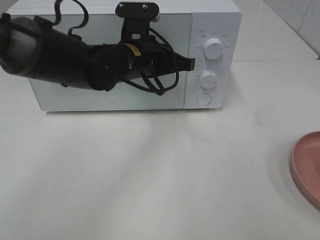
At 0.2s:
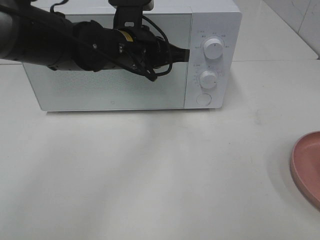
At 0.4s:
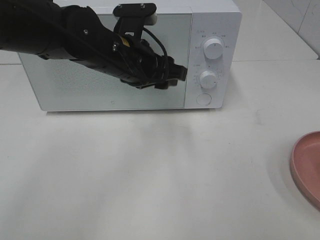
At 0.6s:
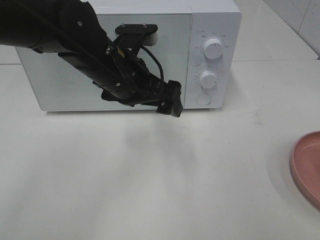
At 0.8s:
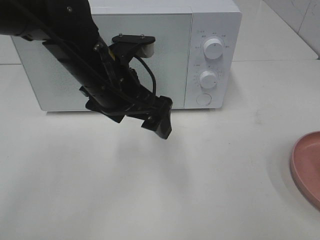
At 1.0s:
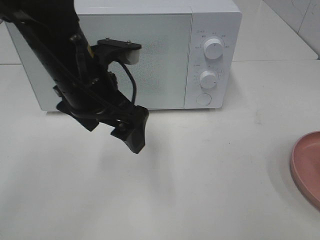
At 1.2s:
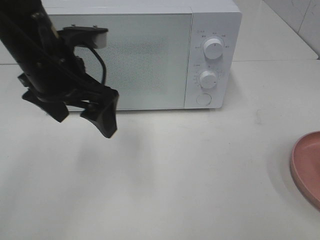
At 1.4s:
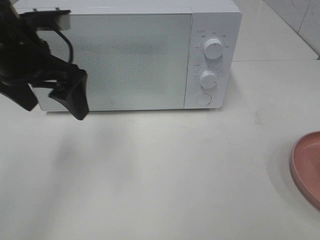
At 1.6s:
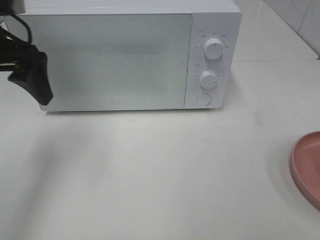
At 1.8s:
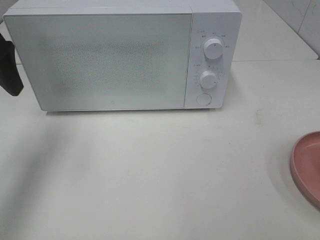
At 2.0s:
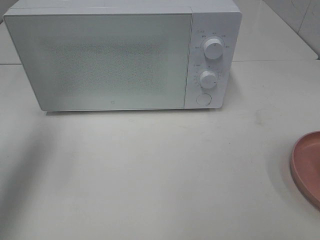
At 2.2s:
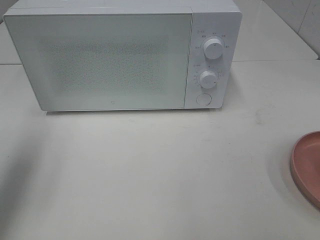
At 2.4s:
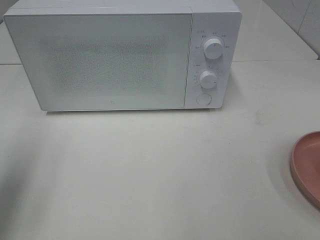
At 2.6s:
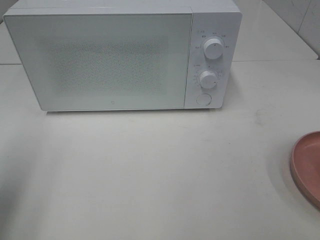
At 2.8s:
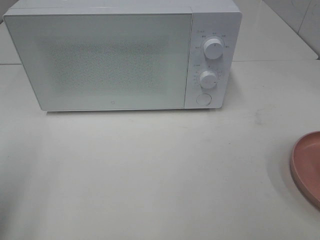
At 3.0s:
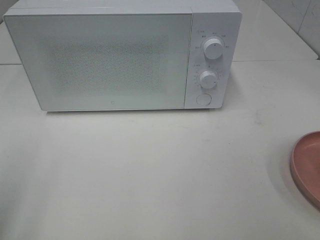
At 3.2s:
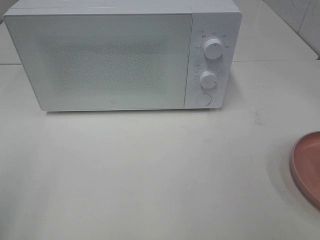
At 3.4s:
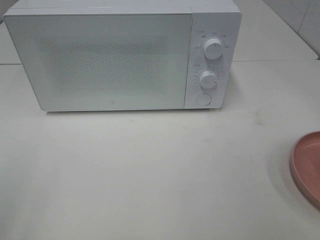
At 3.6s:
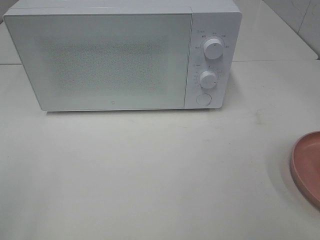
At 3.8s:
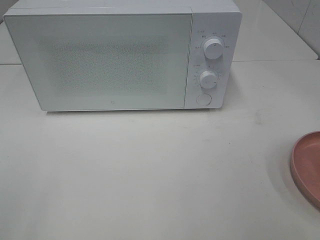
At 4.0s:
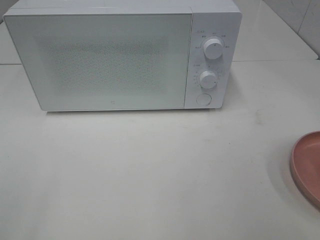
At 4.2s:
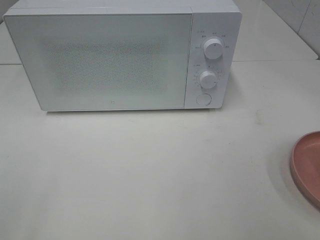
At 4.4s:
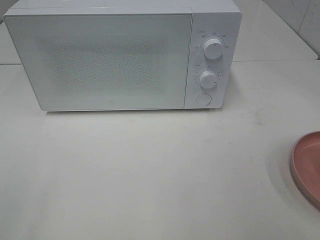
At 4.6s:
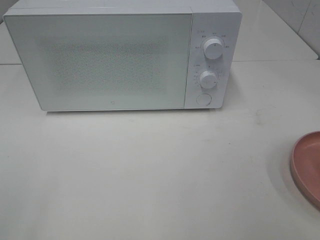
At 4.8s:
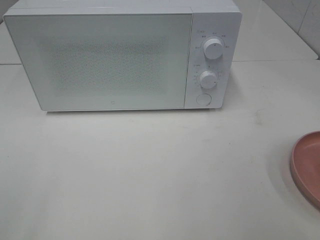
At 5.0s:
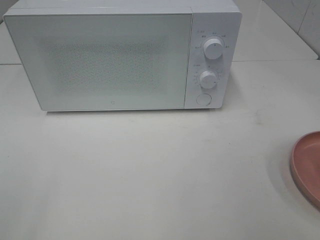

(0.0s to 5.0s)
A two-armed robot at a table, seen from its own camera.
Task of the whole recording: Heat the burger.
0.0s - 1.6s: The left gripper is displaced to the left and upward by some 20 cm, and opens.
1.6s - 3.4s: The left gripper is displaced backward by some 25 cm.

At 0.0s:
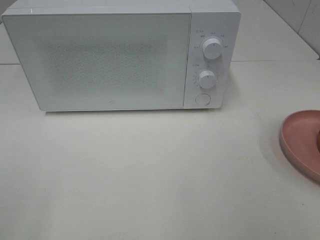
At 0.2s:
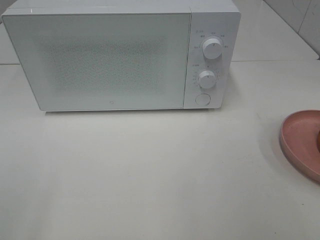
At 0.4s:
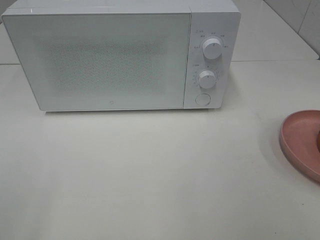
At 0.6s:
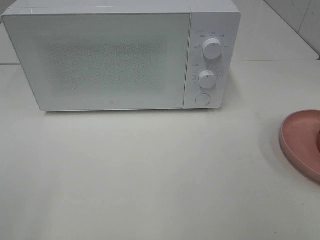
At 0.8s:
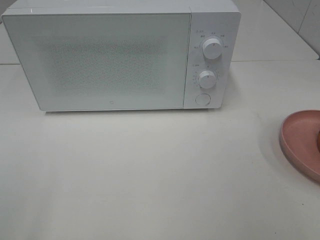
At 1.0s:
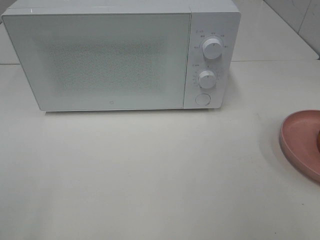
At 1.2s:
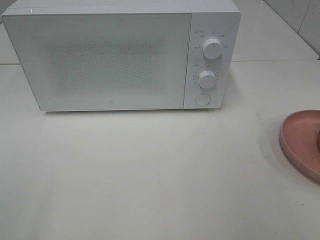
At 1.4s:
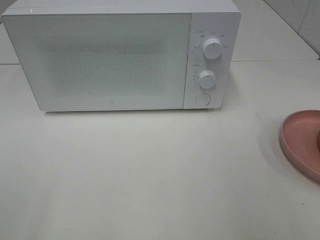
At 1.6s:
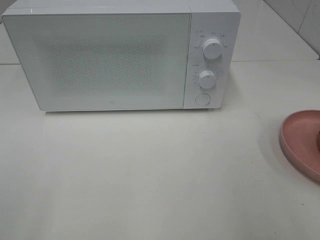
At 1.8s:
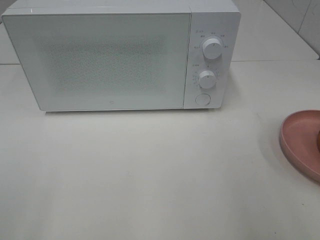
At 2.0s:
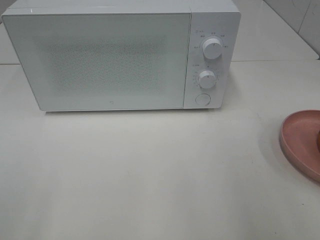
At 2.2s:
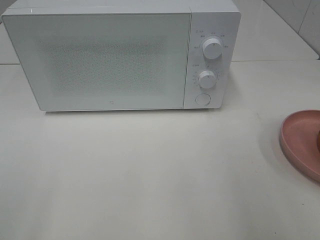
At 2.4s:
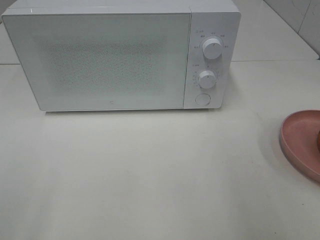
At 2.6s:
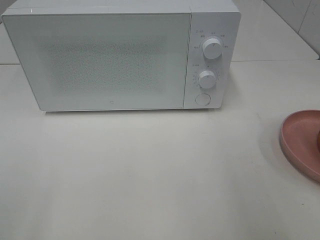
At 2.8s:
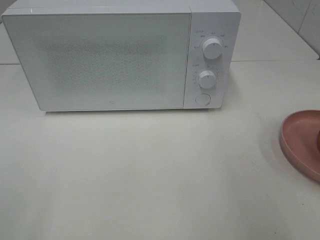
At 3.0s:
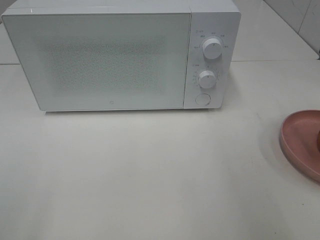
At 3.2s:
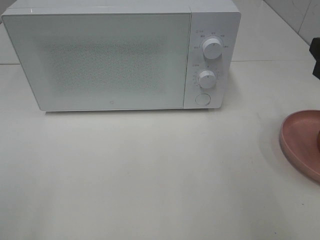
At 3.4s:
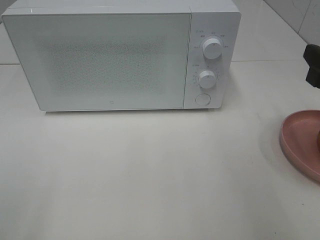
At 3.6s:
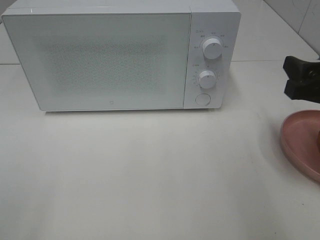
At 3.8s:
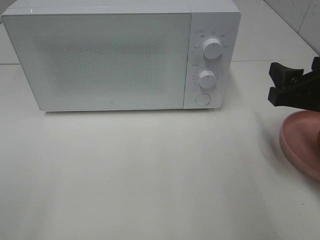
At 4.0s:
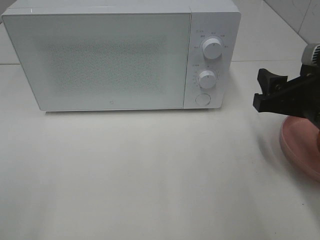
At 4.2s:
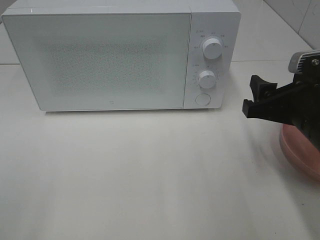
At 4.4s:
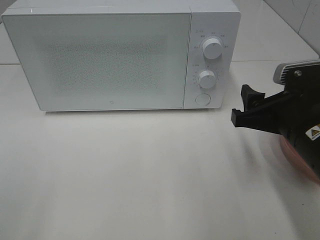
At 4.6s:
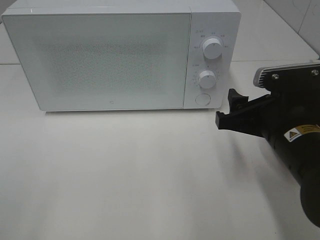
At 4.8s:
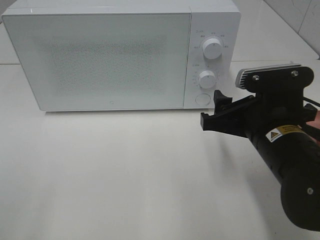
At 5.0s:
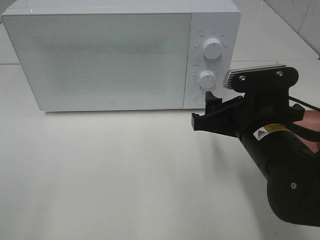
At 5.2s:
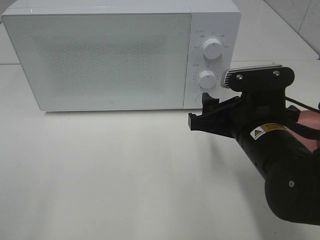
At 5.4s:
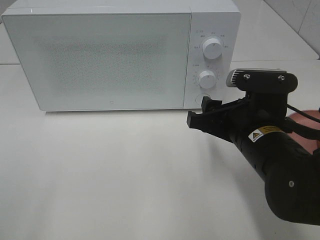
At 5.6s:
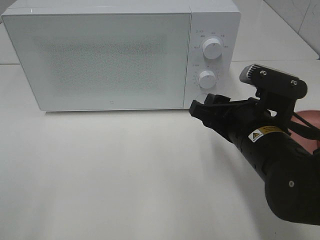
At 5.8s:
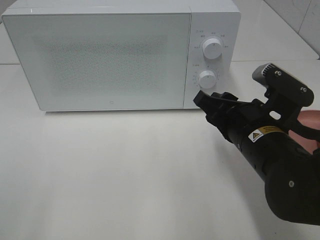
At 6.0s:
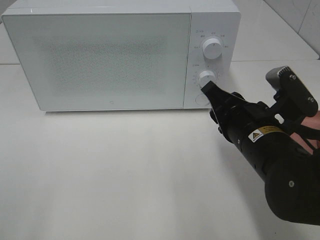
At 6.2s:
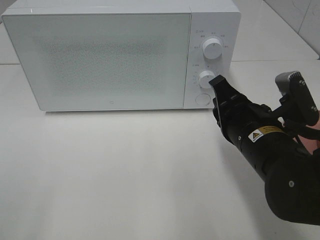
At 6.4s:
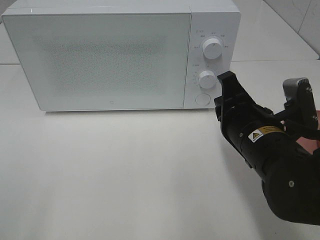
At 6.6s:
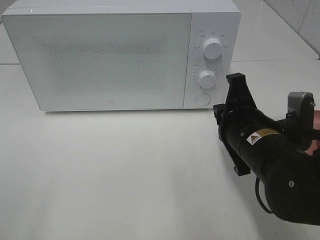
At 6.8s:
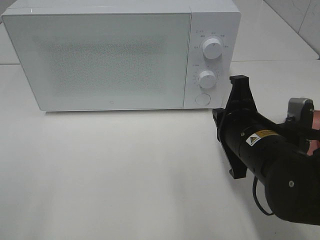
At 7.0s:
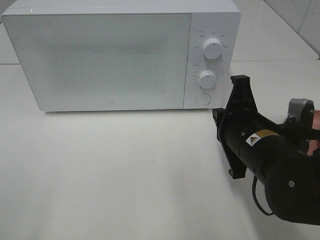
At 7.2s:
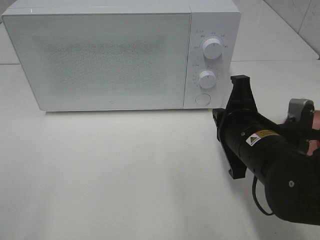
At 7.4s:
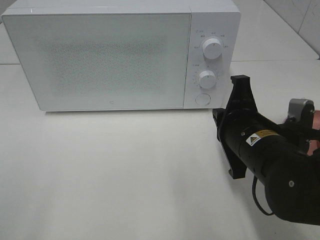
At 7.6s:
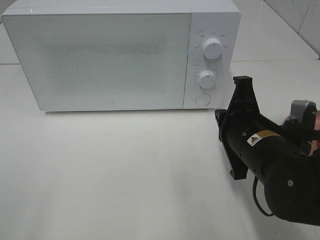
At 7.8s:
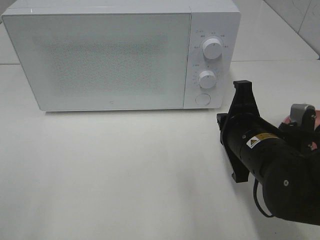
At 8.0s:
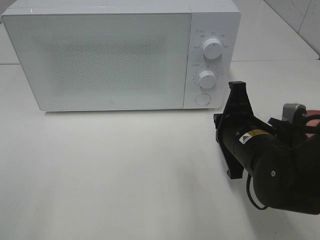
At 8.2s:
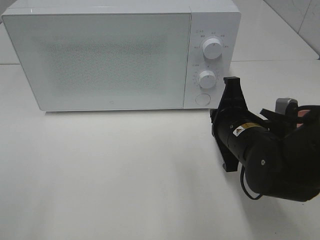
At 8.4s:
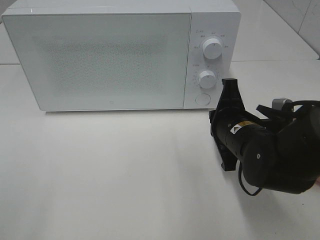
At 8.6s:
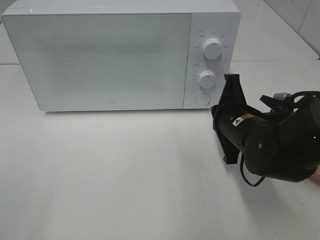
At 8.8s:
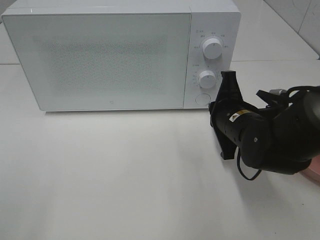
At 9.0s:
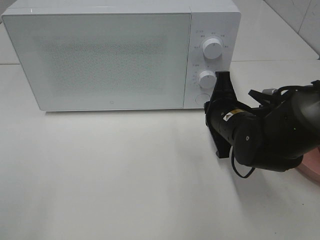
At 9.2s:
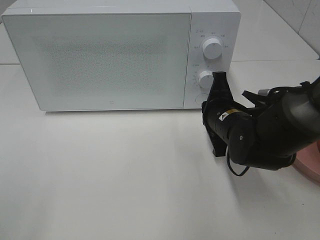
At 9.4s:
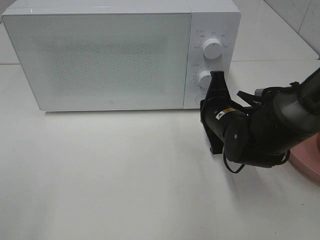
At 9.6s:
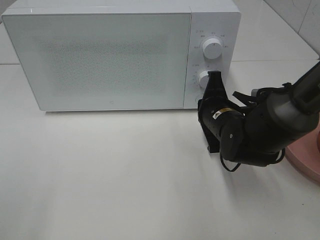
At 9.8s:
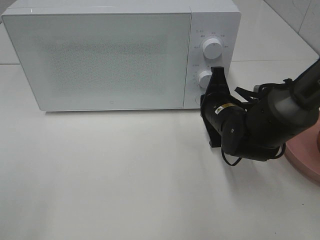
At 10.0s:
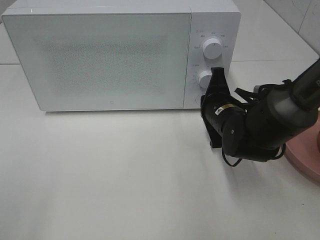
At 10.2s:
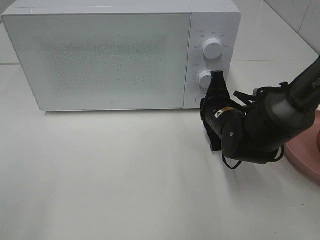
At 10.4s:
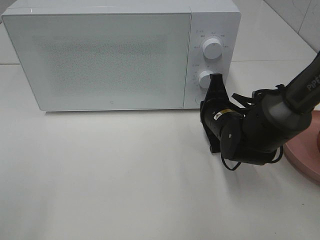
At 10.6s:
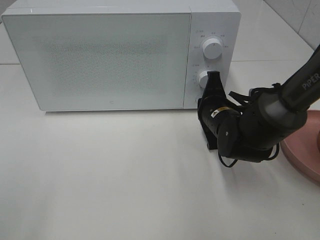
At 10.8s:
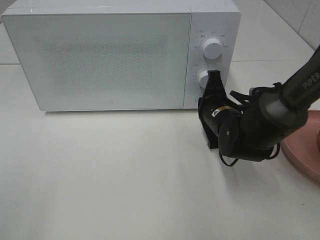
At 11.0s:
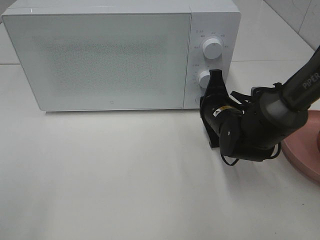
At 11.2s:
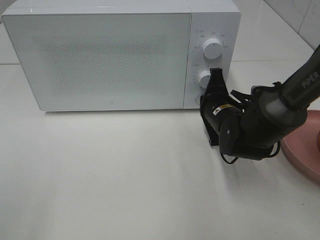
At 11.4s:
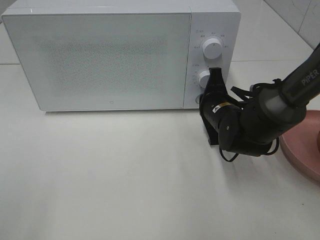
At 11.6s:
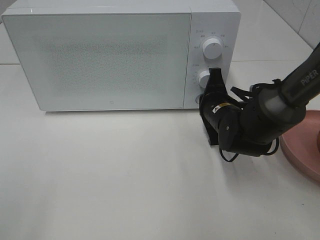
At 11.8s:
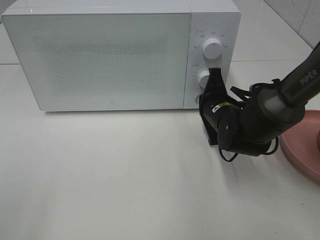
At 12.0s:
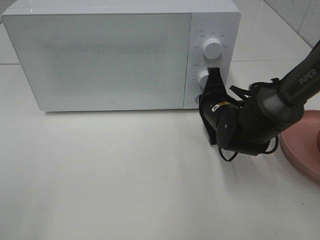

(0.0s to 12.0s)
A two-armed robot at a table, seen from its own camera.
Task of the whole recording: Heat the burger.
3.0s - 4.4s: The right gripper shifts some 15 cm to the left and downward.
4.4s - 6.0s: The right gripper is displaced to the left by roughly 5 cm, and closes.
6.0s - 7.6s: The right gripper closes its fingers.
7.6s - 9.0s: The right gripper heads forward, covering about 10 cm.
9.0s - 12.0s: There are only small adjustments of the grippers.

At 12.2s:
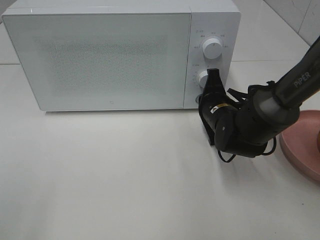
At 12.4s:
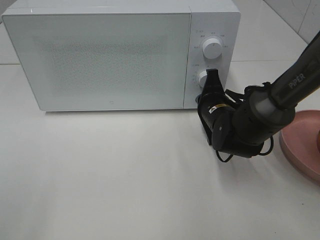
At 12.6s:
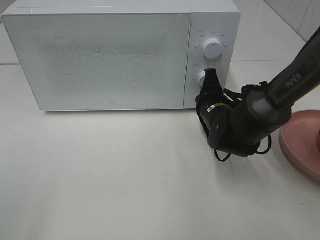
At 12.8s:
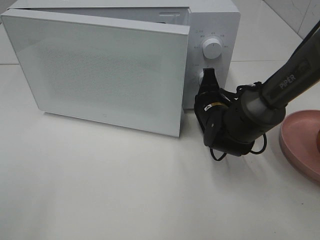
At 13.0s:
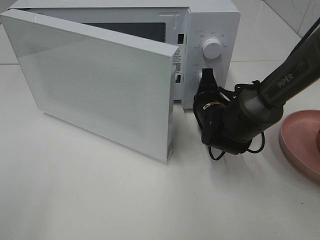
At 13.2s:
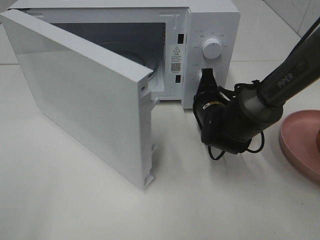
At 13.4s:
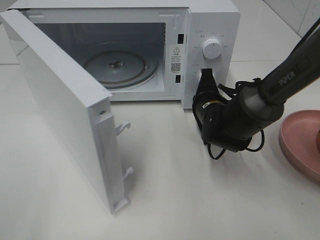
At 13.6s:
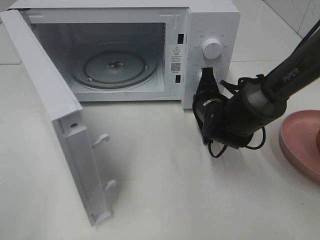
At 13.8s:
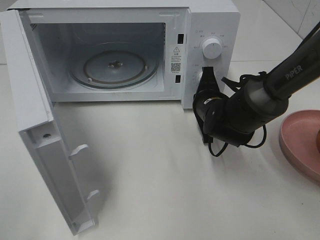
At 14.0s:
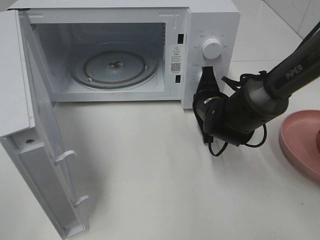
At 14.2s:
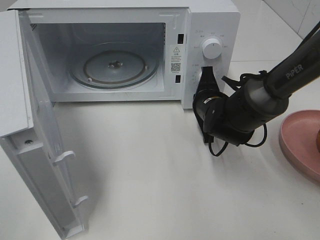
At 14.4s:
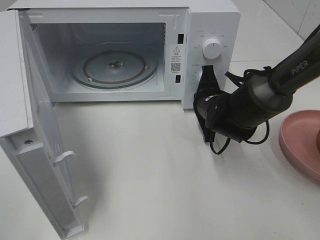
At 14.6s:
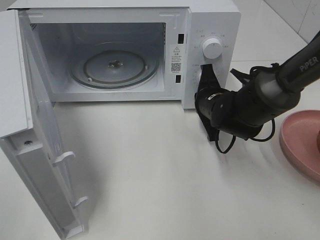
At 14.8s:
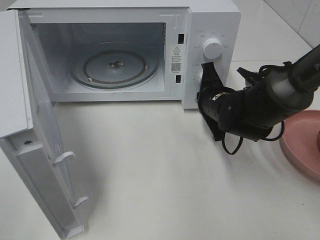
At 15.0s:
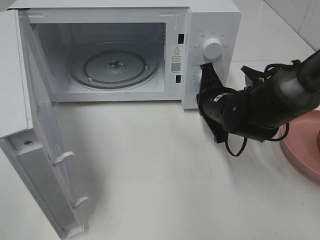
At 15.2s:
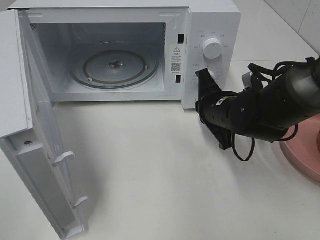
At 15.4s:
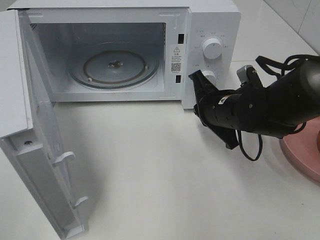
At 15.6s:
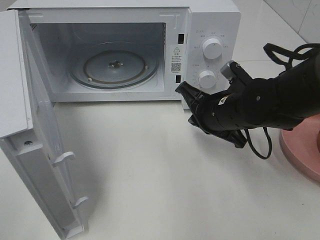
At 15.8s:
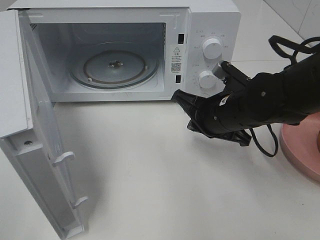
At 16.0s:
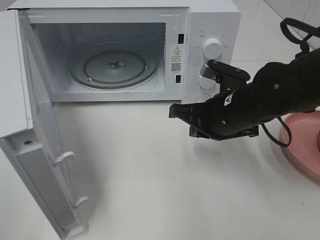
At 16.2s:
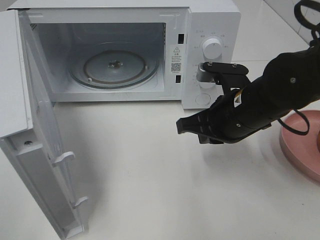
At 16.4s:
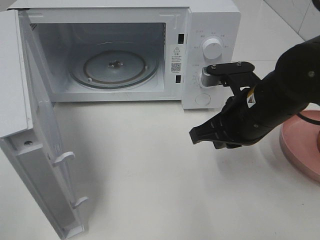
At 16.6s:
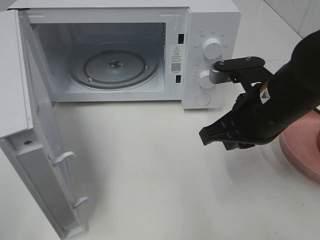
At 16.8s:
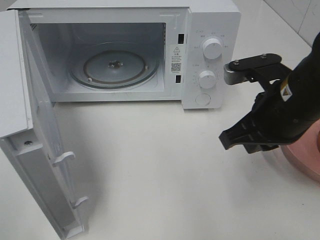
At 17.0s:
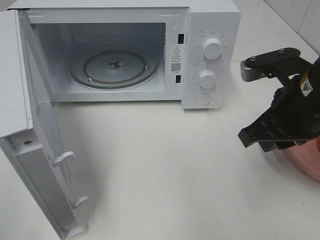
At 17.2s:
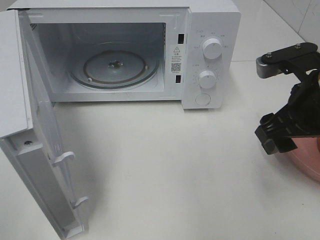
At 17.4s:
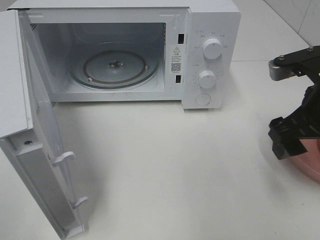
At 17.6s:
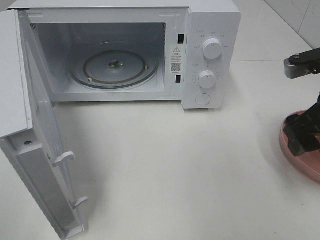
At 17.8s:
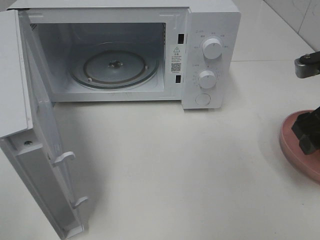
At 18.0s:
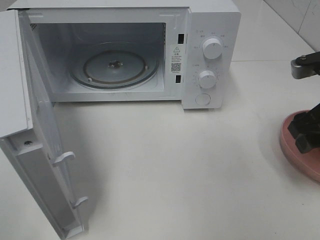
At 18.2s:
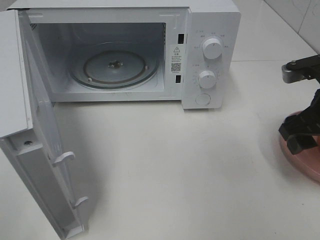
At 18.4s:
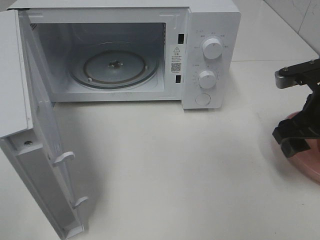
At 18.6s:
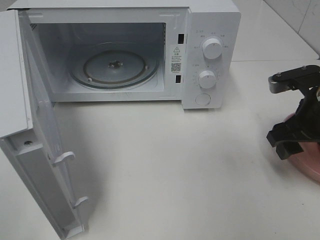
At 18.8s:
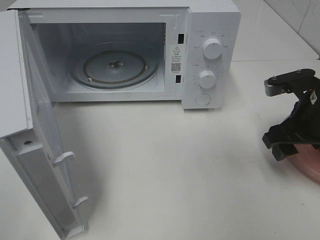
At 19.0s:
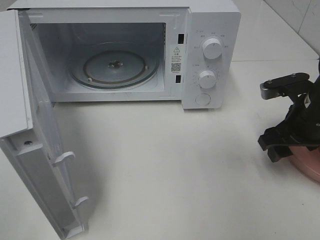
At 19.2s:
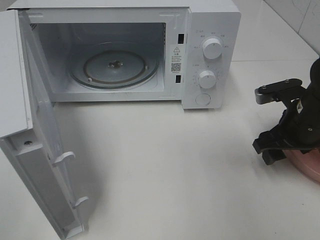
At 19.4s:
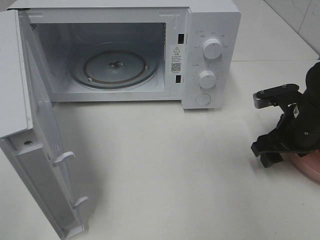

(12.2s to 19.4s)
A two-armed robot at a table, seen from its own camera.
Task of the whole recording: Heat the burger.
Step, 12.2s - 14.8s: Right hand: press the switch.
15.0s - 16.6s: The right gripper is displaced backward and upward by about 15 cm.
16.6s - 18.0s: The right gripper goes some 10 cm to the right, and opens.
18.0s - 19.4s: The right gripper heads downward, covering roughly 10 cm.
